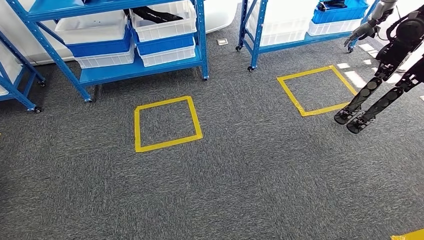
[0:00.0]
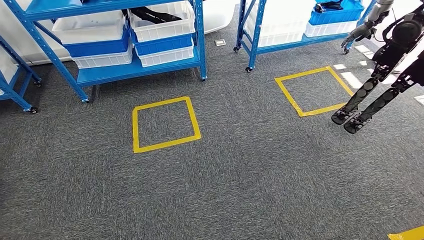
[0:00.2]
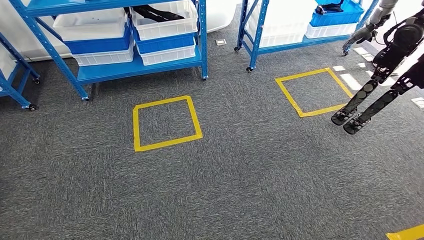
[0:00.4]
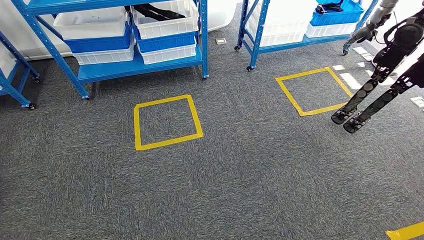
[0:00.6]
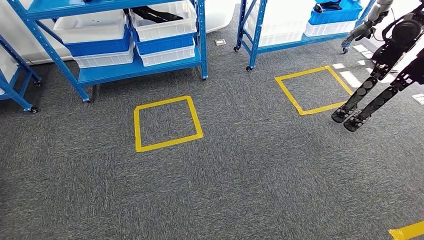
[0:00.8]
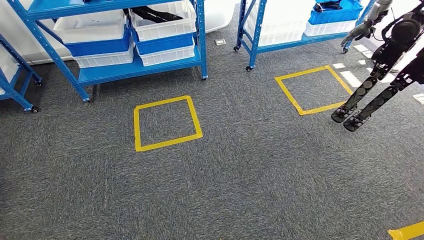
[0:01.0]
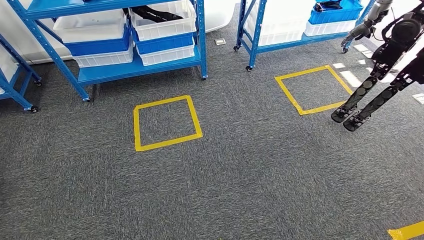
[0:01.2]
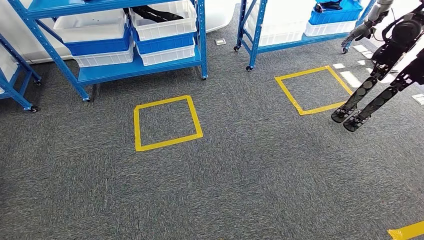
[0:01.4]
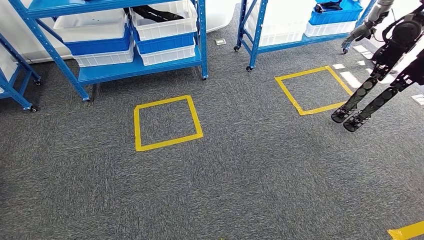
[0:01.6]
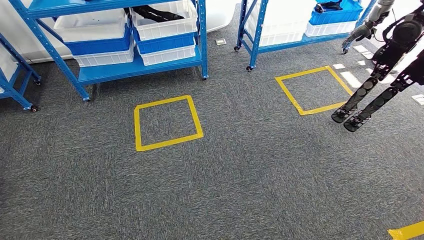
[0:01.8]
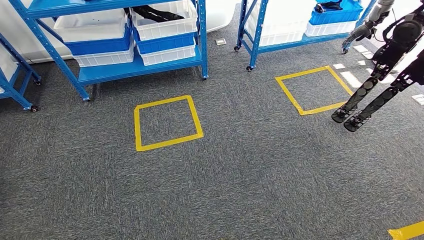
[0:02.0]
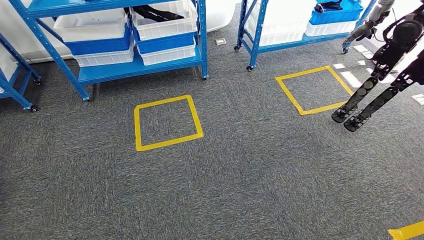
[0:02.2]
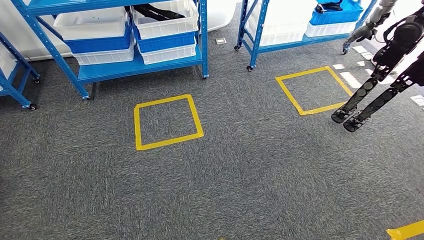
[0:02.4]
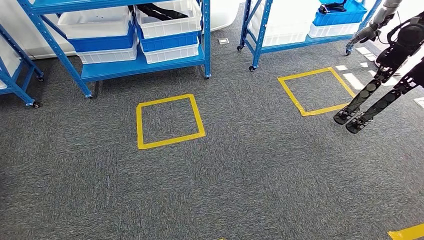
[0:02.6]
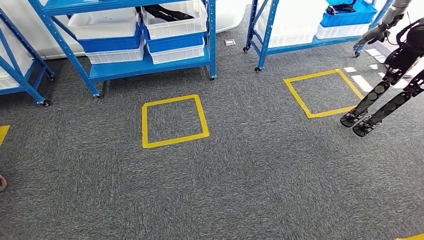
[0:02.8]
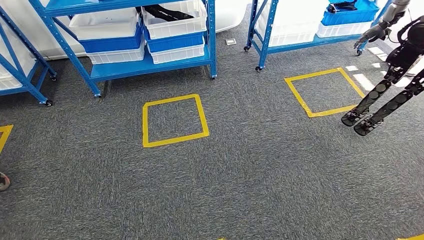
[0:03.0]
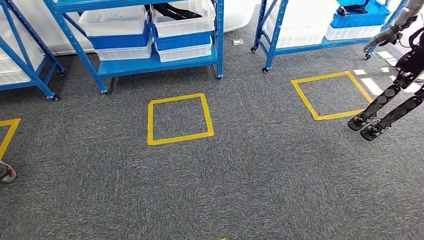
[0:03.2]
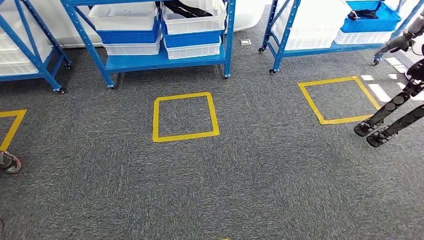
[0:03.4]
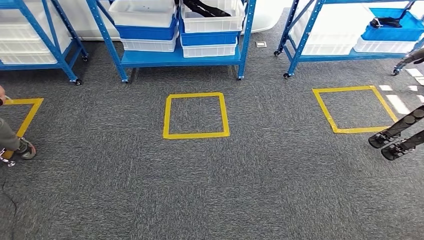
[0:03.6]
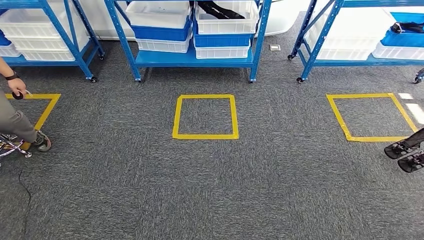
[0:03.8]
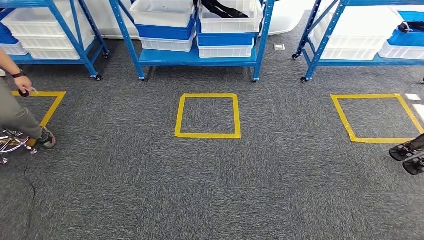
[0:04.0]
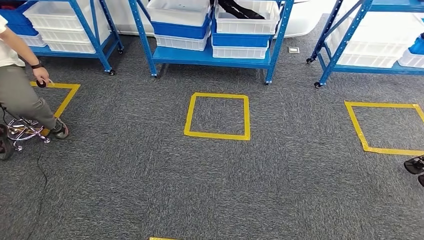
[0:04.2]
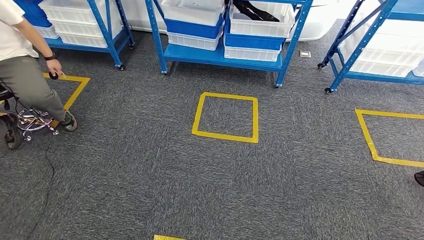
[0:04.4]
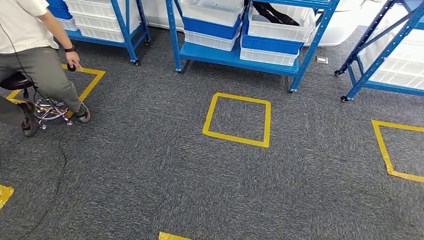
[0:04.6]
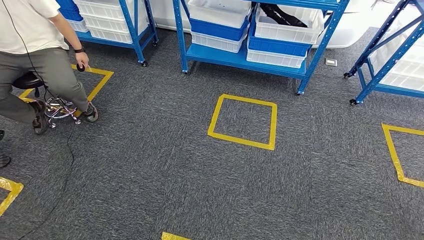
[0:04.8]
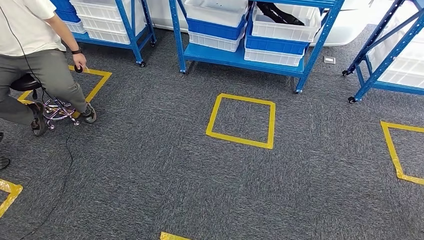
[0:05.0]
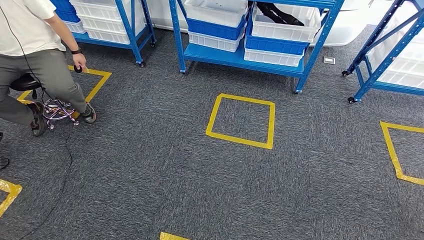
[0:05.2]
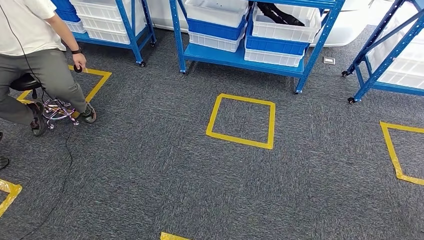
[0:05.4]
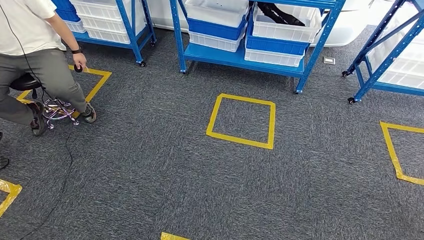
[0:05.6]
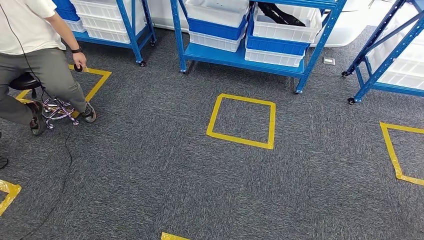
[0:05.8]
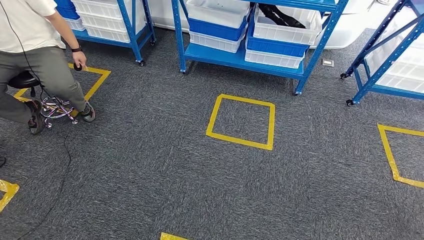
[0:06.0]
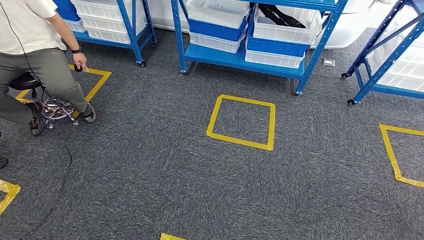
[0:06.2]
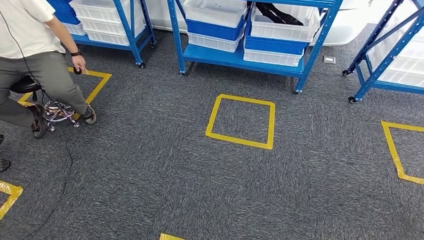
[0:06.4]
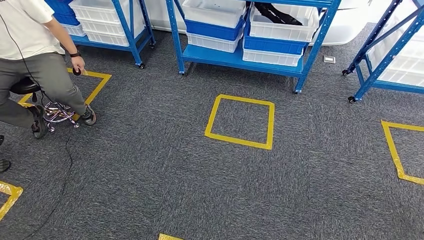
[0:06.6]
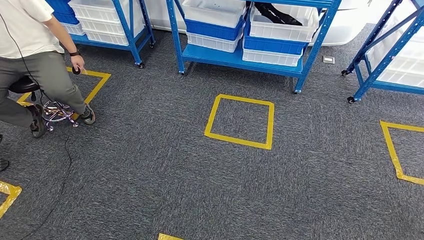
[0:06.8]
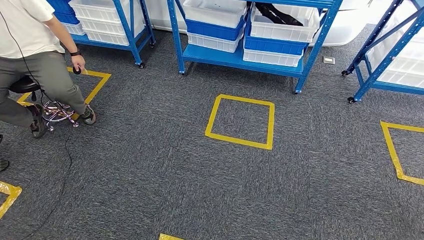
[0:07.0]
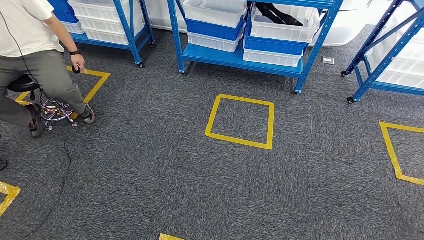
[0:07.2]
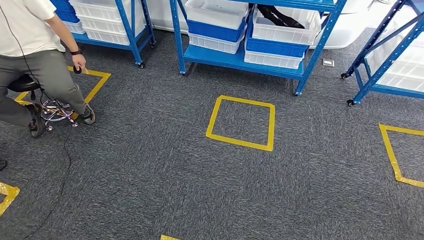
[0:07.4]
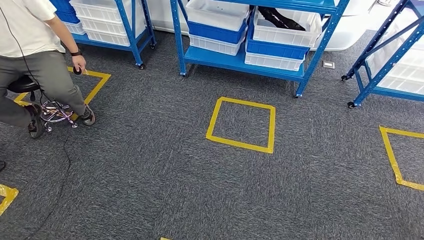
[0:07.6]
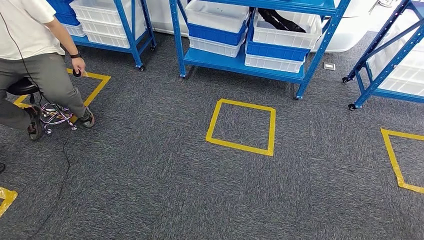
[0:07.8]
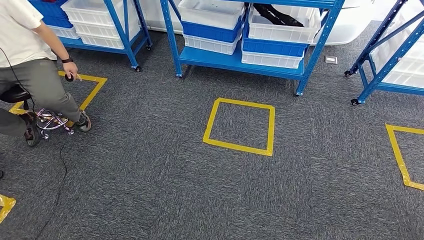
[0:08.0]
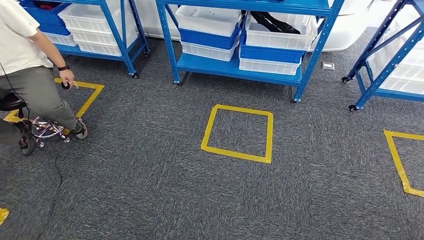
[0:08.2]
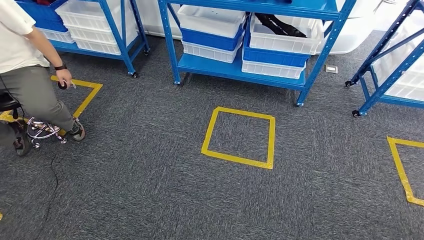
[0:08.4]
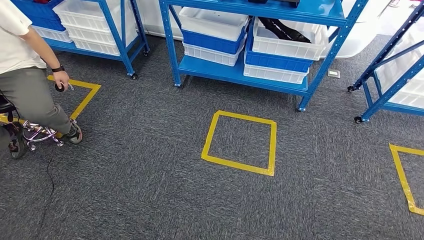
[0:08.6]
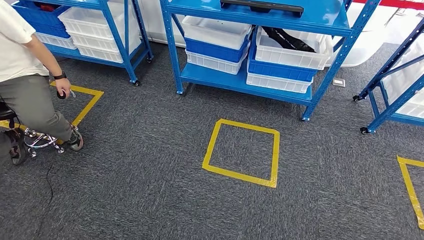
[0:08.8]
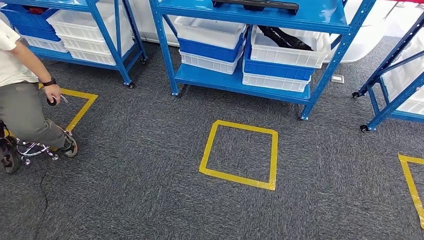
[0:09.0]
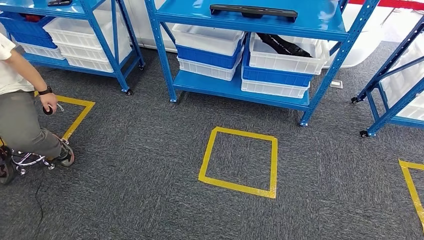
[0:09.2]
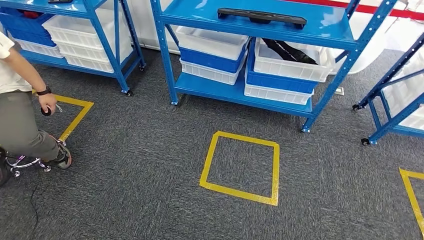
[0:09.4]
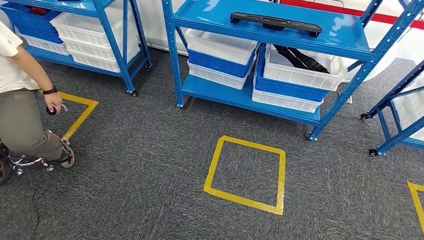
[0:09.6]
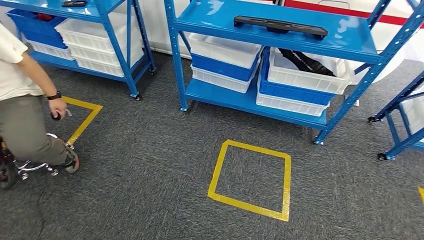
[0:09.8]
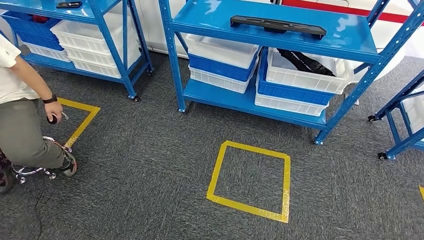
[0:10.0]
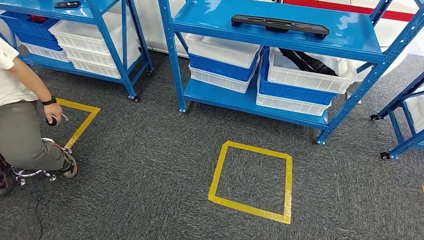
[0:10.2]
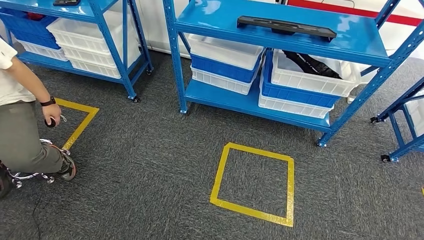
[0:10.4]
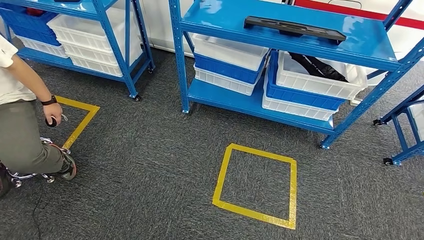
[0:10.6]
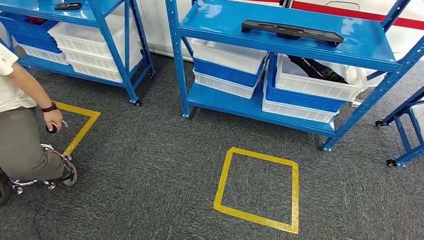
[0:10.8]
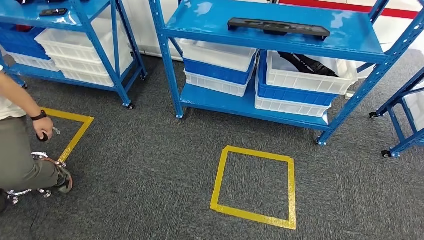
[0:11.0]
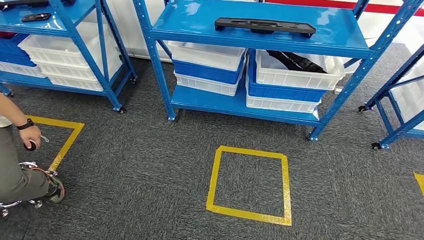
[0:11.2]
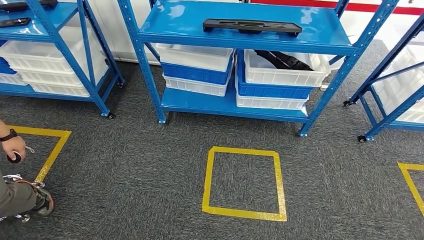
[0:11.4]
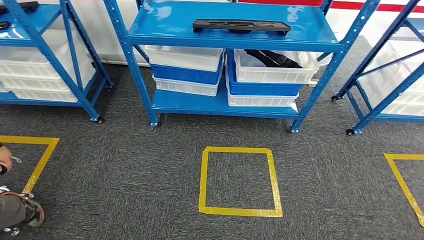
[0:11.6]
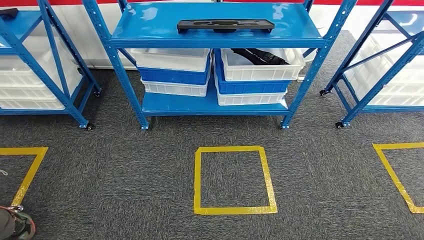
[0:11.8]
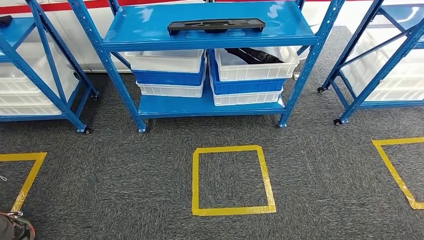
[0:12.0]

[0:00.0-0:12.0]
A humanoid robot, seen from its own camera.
0:00.0 to 0:01.6: The hands make only small movements.
0:06.0 to 0:07.6: Both hands stay about where they are.

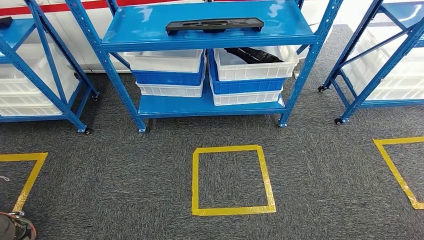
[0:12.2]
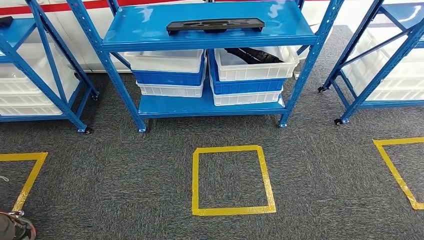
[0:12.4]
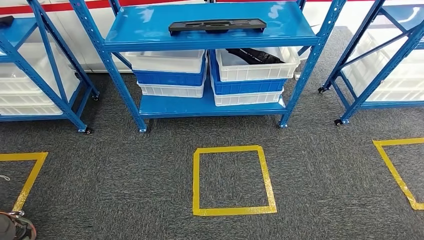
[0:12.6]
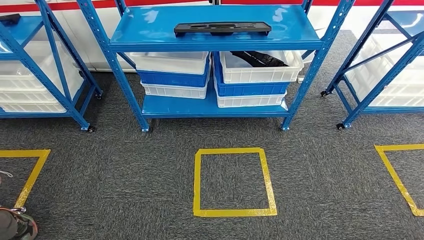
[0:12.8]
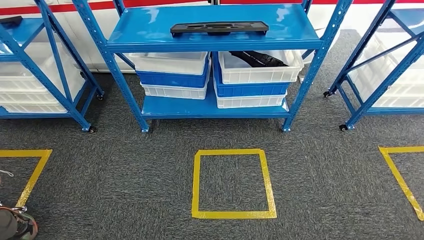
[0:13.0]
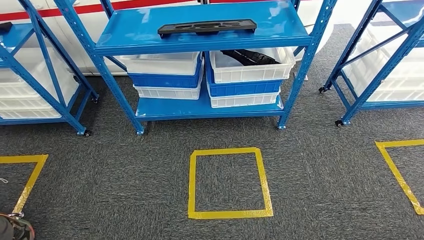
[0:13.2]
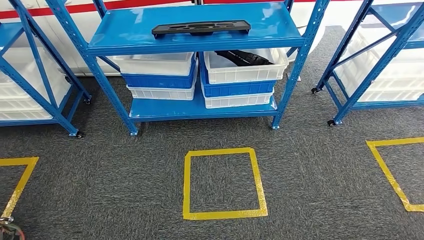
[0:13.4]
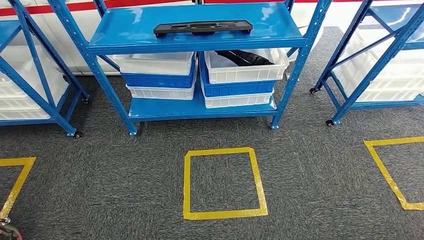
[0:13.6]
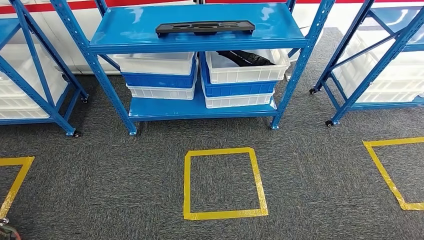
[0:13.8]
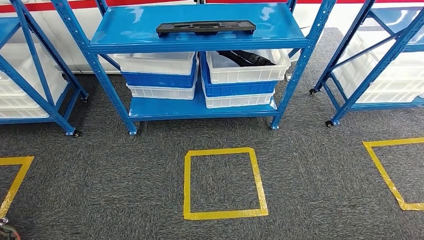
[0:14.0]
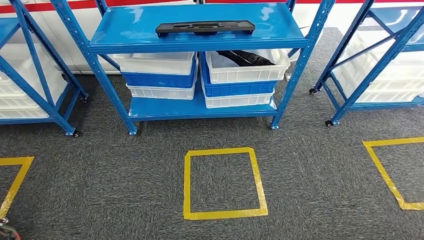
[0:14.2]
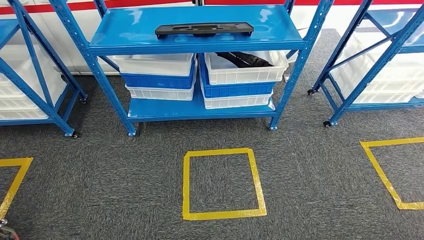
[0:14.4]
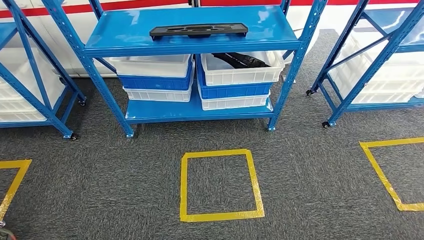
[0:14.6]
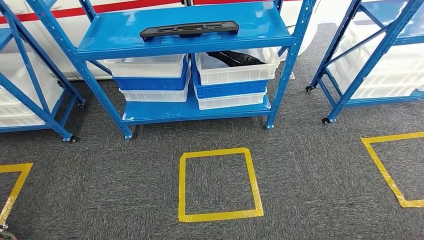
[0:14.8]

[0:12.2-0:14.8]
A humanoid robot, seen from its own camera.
Step, 0:12.2 to 0:14.8: Move to the initial position of the shelf.
